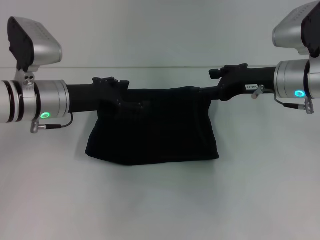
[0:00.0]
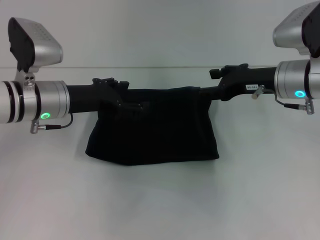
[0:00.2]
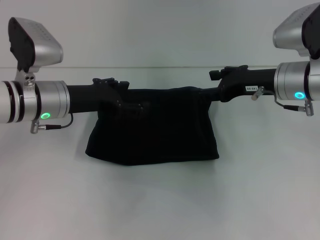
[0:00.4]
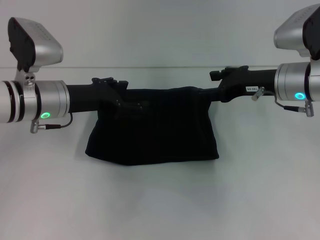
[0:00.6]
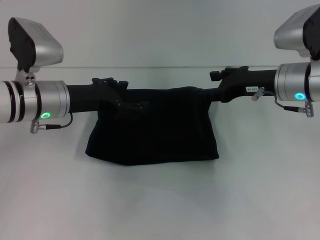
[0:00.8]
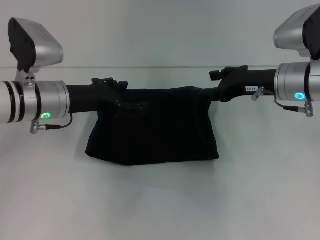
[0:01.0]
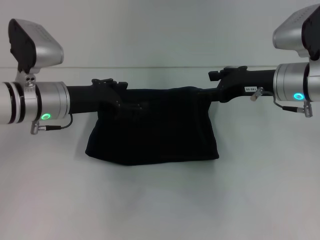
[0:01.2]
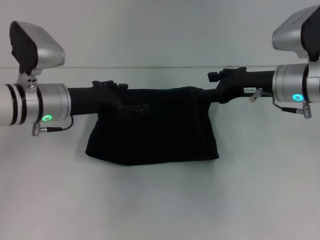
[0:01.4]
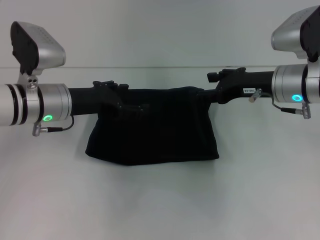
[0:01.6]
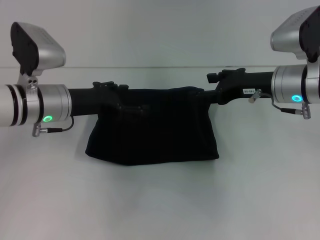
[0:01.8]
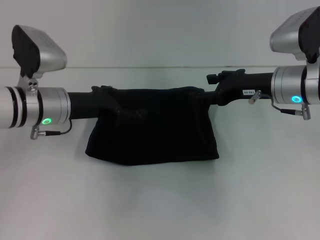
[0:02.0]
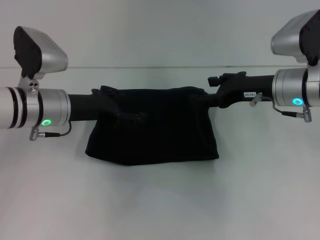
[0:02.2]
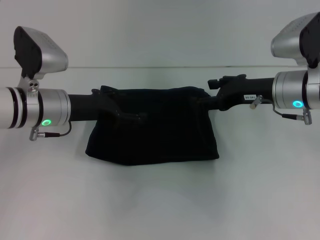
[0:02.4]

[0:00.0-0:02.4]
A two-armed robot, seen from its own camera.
0:00.0 to 0:01.2: Both grippers stay put.
0:01.2 to 0:02.4: Both grippers stay put.

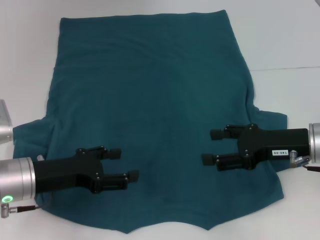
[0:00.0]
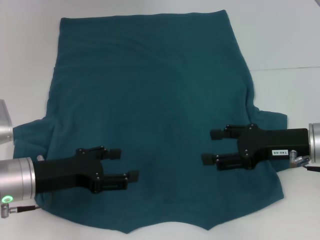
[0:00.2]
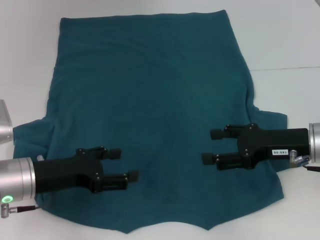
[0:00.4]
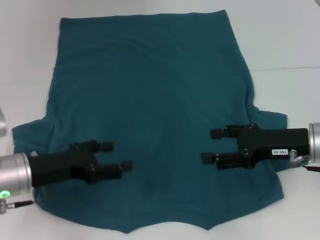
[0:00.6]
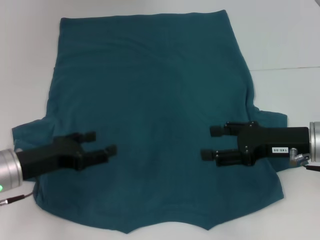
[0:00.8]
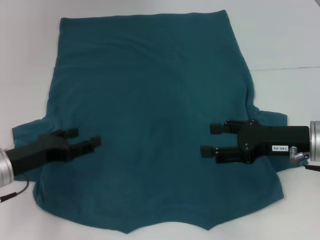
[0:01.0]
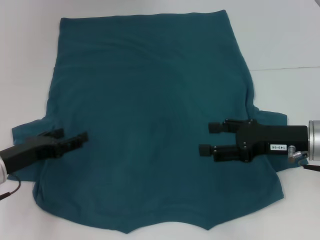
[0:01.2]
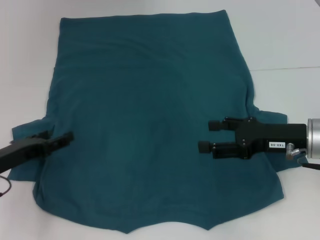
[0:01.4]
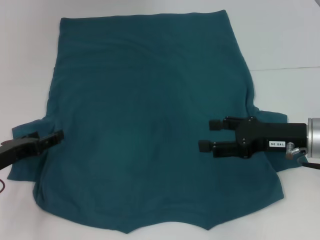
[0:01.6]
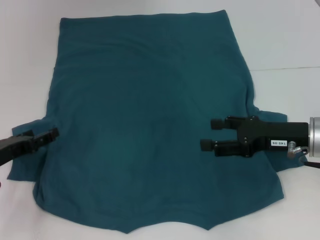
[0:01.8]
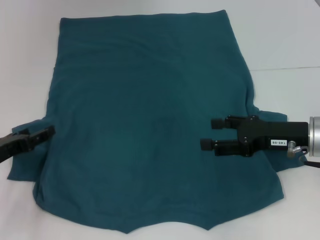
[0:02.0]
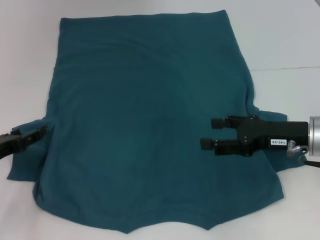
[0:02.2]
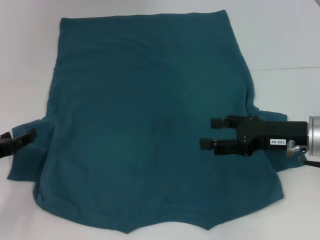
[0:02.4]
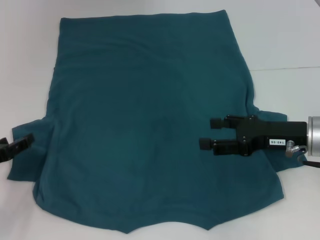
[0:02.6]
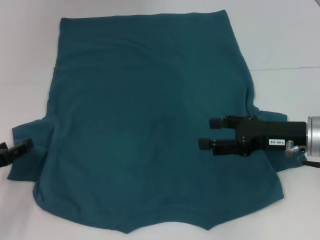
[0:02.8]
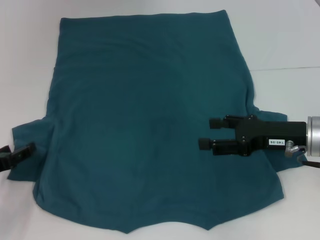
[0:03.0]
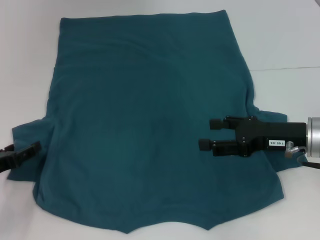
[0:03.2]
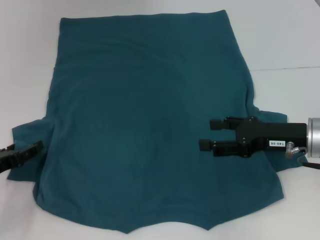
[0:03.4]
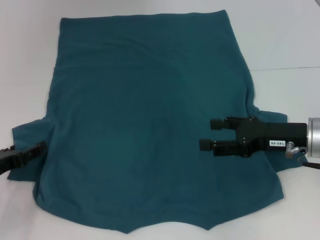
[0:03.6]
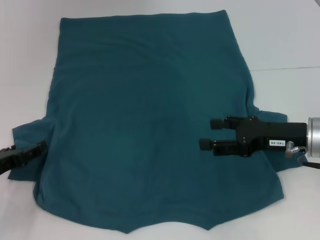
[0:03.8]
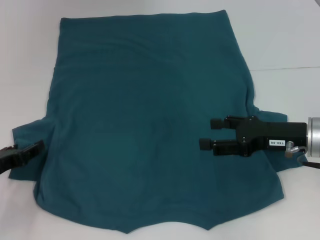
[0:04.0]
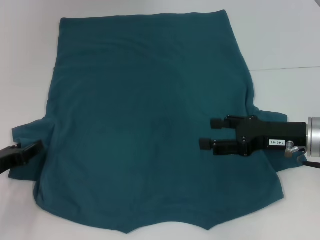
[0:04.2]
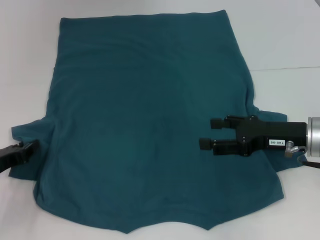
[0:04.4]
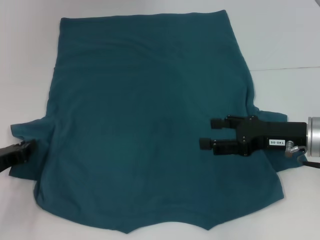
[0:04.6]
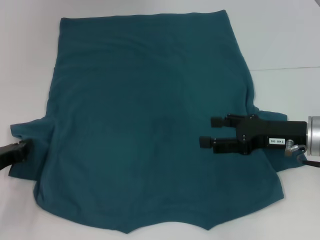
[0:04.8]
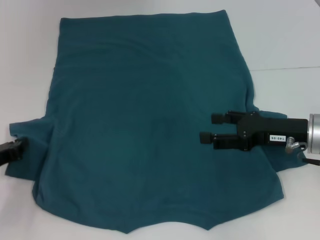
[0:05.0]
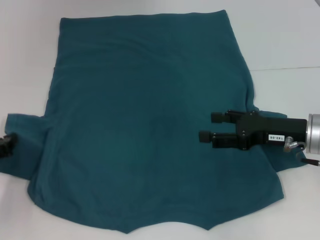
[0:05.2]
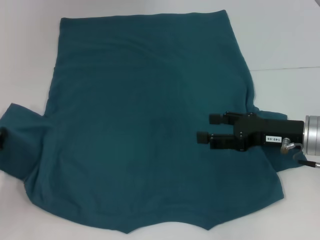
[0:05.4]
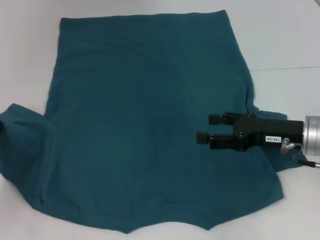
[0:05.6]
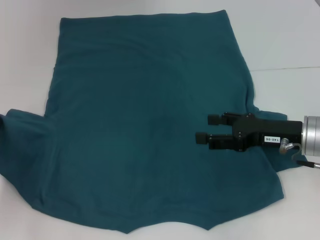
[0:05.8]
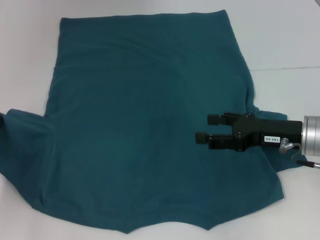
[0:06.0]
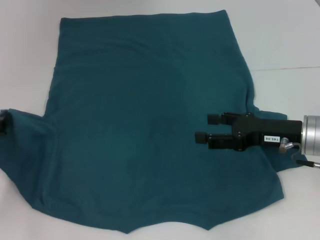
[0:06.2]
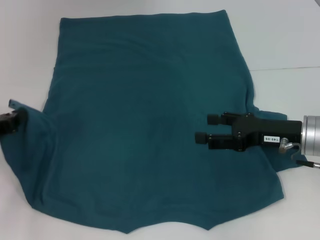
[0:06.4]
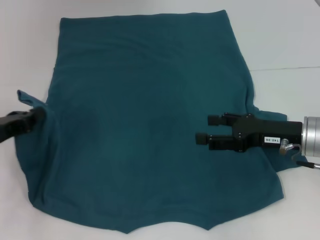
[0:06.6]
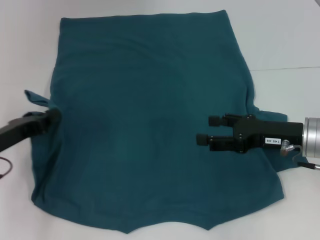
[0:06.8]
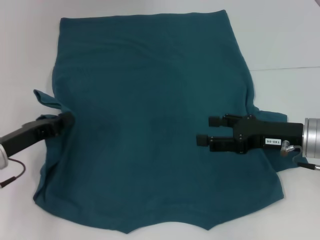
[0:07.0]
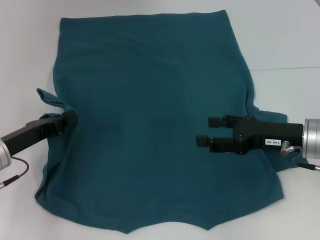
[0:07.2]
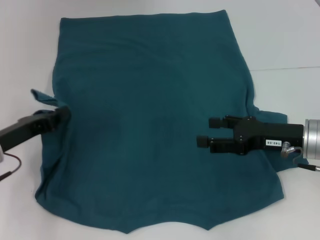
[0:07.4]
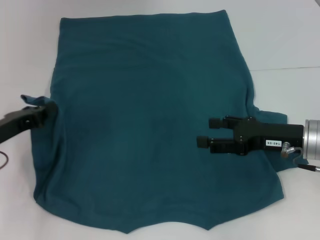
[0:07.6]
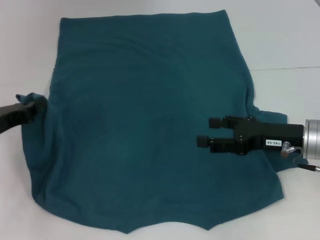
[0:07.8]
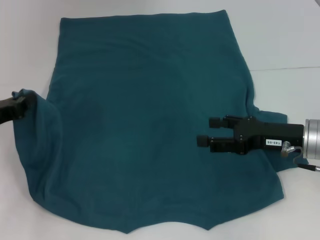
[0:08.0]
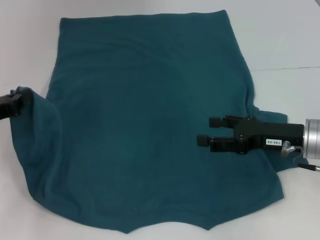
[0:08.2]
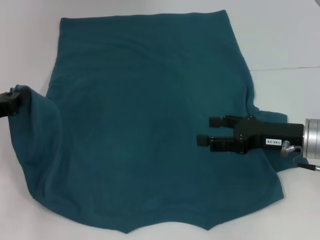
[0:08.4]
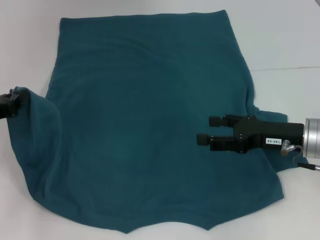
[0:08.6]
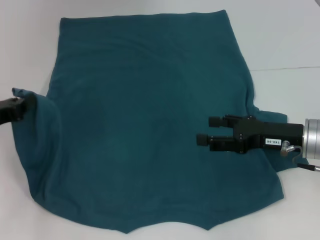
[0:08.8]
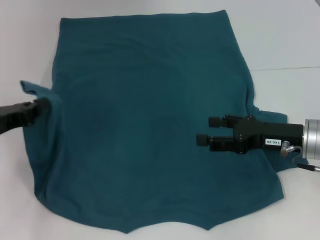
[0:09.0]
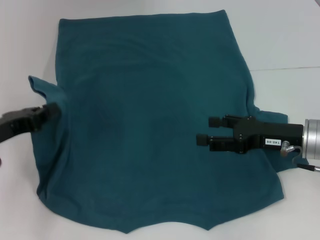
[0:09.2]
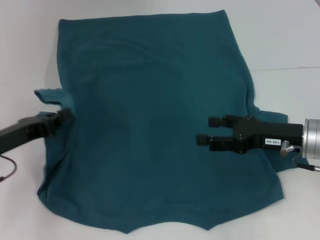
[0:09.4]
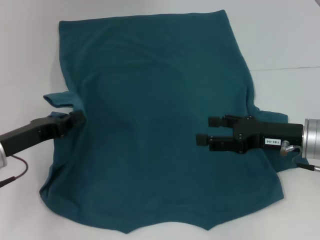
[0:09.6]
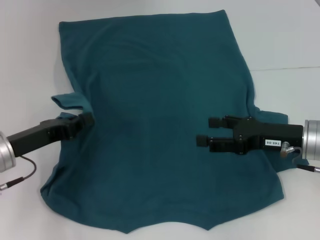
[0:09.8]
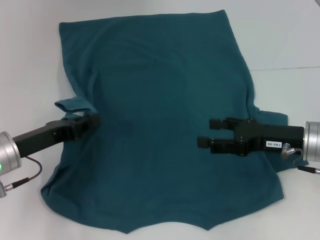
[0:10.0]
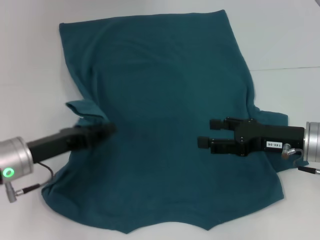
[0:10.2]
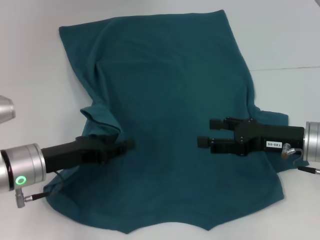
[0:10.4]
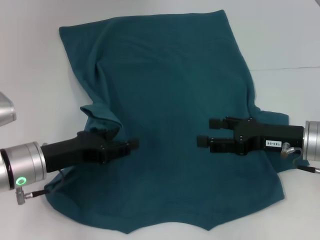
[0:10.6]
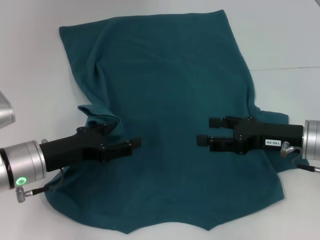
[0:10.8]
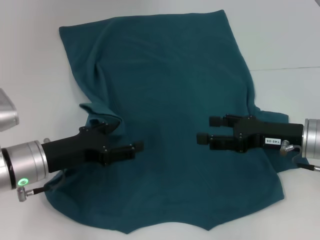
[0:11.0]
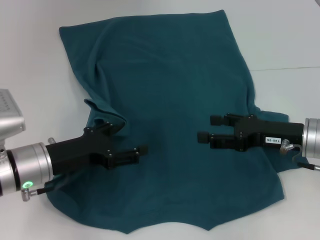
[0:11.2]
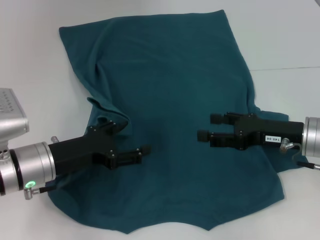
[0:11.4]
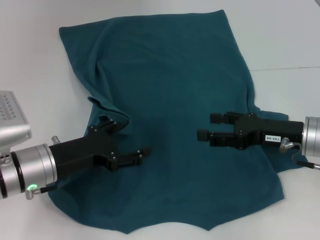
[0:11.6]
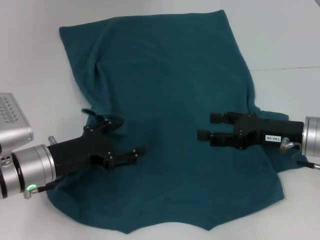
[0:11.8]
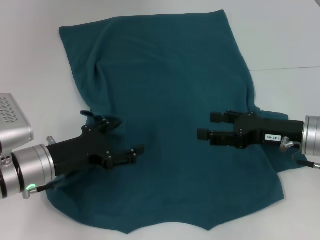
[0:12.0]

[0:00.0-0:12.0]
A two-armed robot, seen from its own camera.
0:00.0 to 0:01.6: The left gripper heads to the left, covering some 5 cm.
0:01.6 to 0:03.0: The grippers stay close to where they were, moving slightly.
0:04.4 to 0:06.0: The left gripper ends up about 5 cm from where it was, and closes its fingers.
0:06.0 to 0:07.6: The left gripper moves to the right, about 5 cm.
0:07.6 to 0:09.0: There are only small adjustments of the grippers.
0:09.0 to 0:10.4: The left gripper is displaced to the right by roughly 10 cm, and opens up.
0:10.4 to 0:12.0: The left gripper opens its fingers.

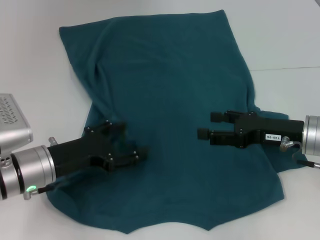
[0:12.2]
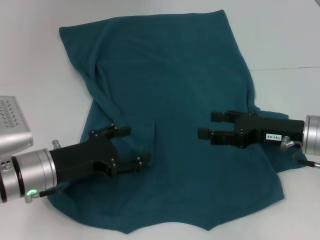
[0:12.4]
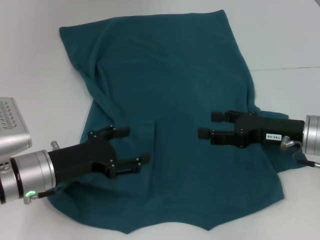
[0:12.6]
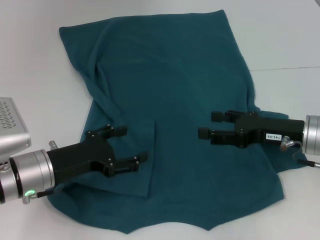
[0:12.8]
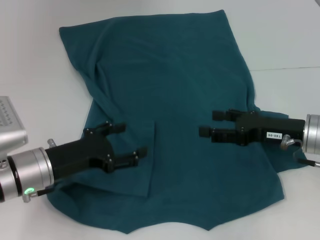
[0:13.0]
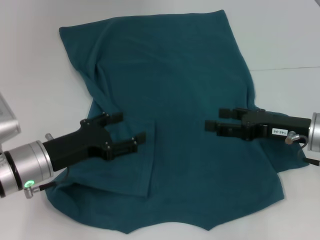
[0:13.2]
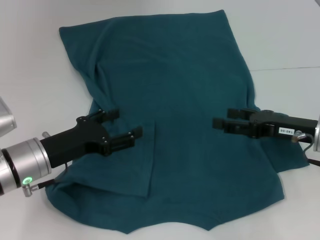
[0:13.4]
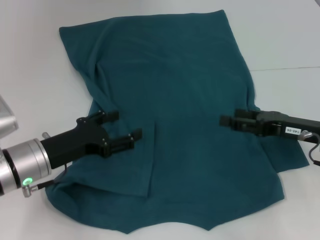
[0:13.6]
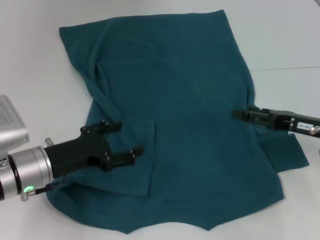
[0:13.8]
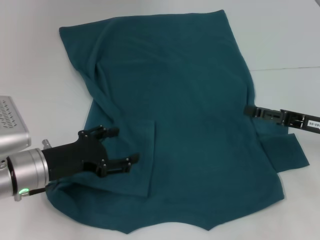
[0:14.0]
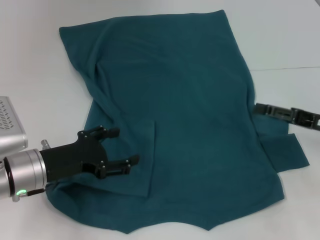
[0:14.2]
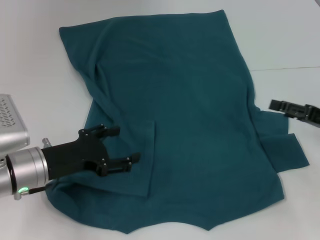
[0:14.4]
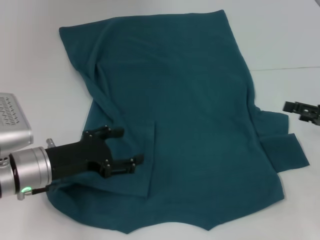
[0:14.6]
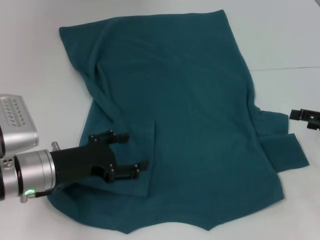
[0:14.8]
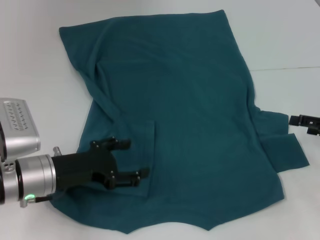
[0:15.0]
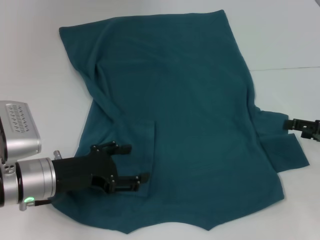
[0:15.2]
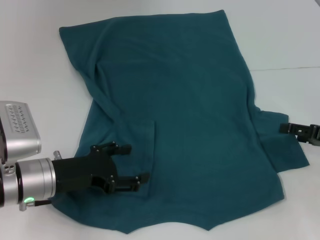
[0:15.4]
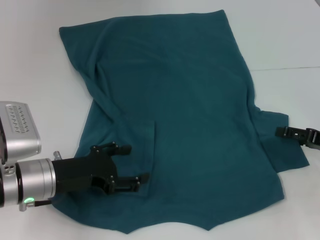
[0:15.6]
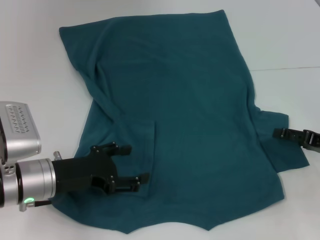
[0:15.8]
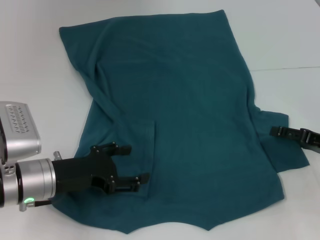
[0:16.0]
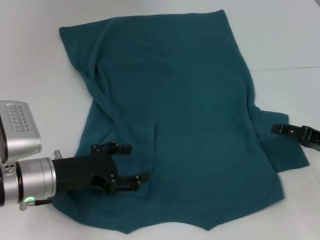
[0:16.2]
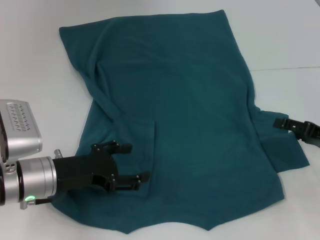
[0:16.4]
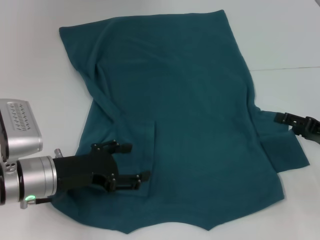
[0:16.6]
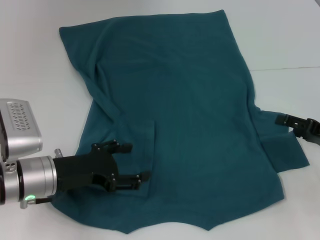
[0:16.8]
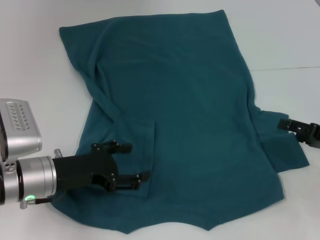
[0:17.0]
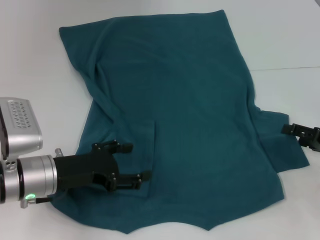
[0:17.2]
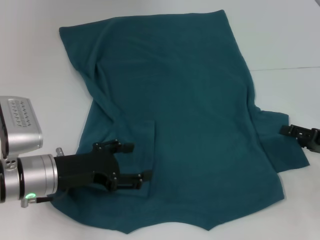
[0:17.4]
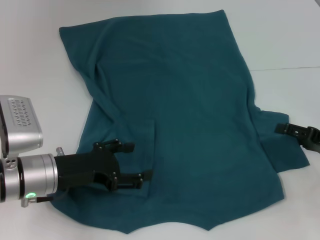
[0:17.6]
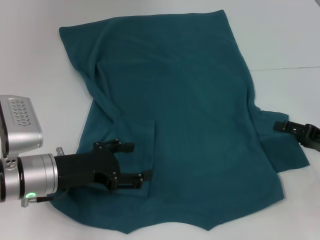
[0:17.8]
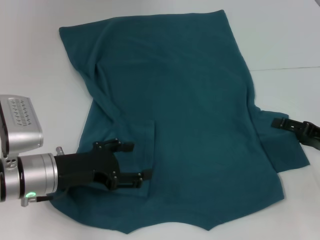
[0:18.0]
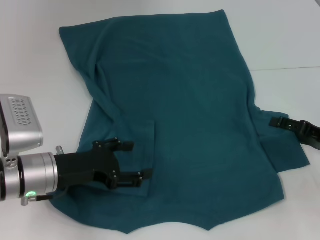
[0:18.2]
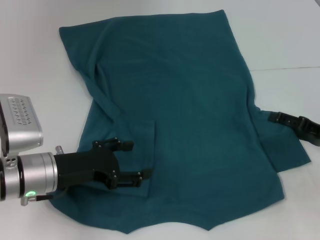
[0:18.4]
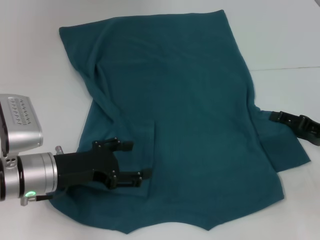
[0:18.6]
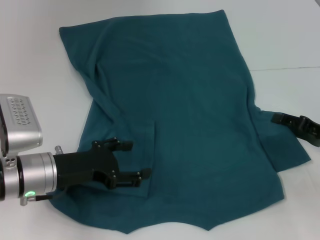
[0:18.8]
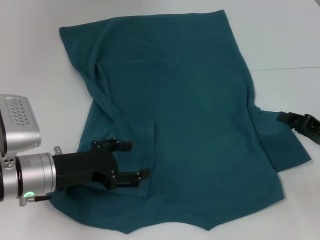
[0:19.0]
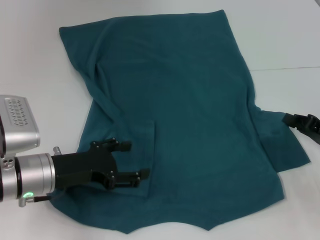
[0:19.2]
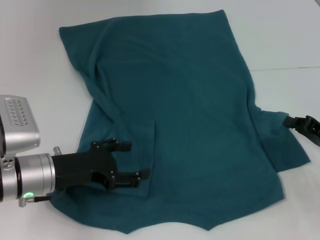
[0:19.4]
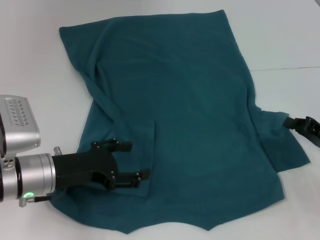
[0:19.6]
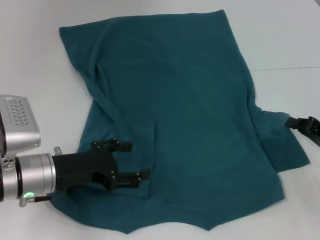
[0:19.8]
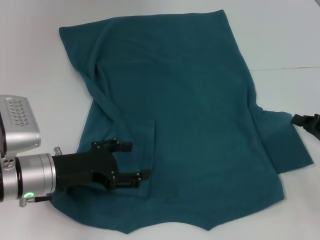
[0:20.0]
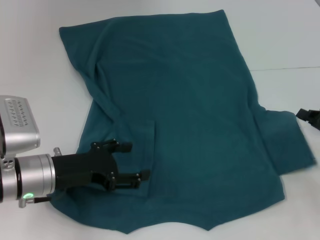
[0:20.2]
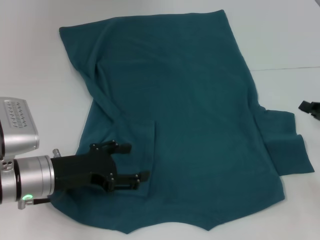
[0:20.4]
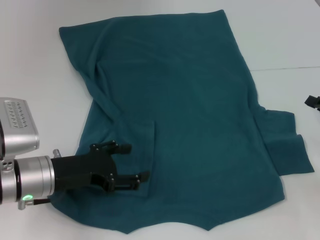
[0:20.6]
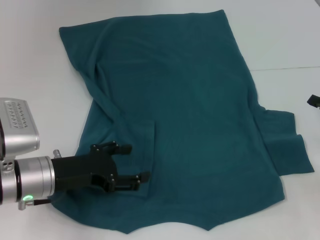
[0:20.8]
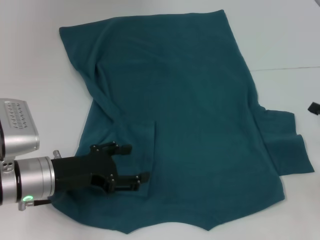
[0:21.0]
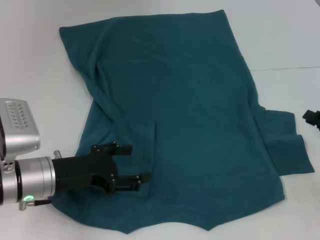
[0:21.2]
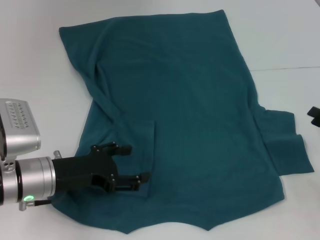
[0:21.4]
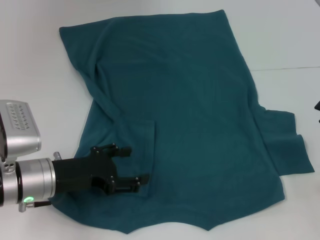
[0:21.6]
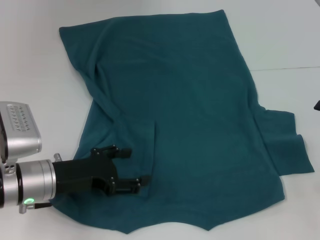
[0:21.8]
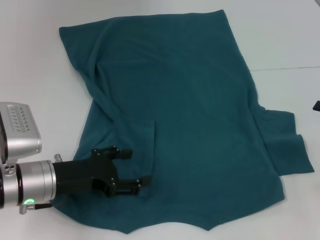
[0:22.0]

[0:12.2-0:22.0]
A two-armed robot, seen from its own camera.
0:12.2 to 0:13.6: The grippers move only a little.
0:13.6 to 0:15.0: The right gripper is displaced to the right by some 10 cm.
0:15.0 to 0:17.8: The grippers stay close to where they were, moving slightly.
0:17.8 to 0:19.2: The right gripper closes.
0:19.2 to 0:20.6: The right gripper closes.
